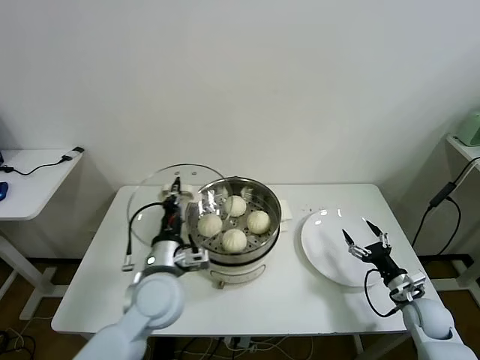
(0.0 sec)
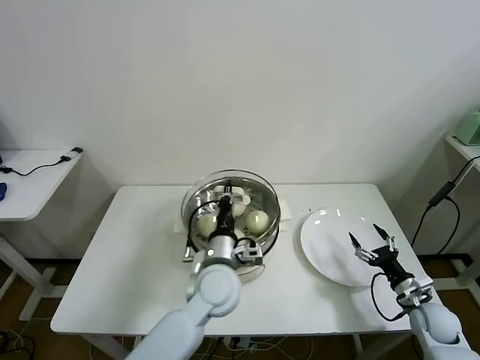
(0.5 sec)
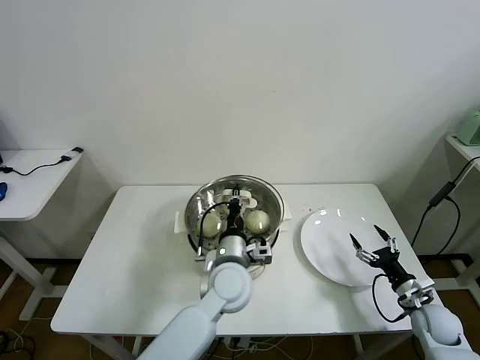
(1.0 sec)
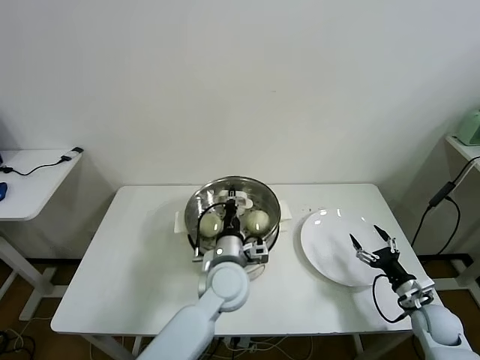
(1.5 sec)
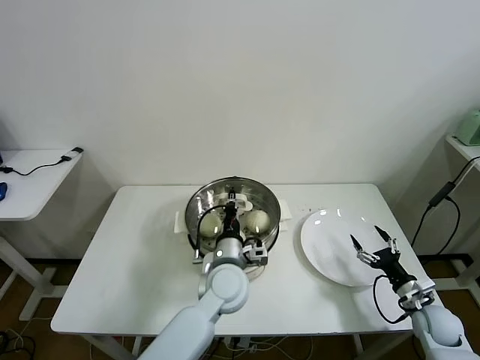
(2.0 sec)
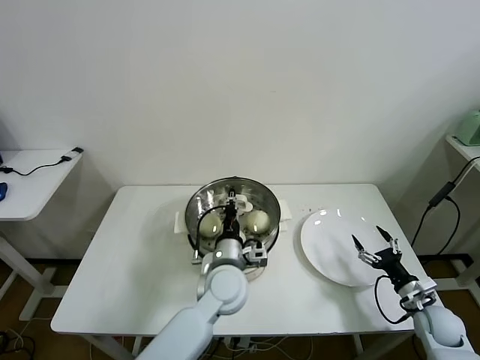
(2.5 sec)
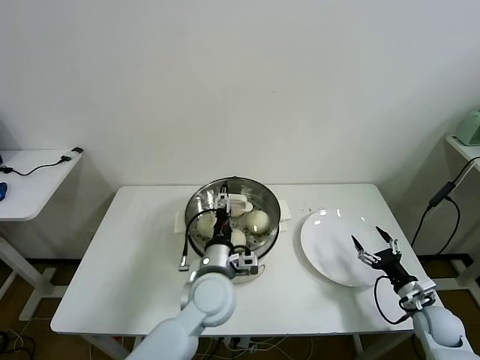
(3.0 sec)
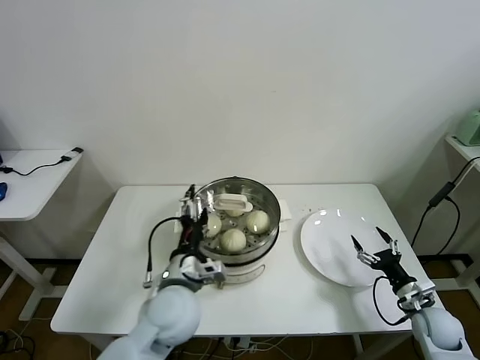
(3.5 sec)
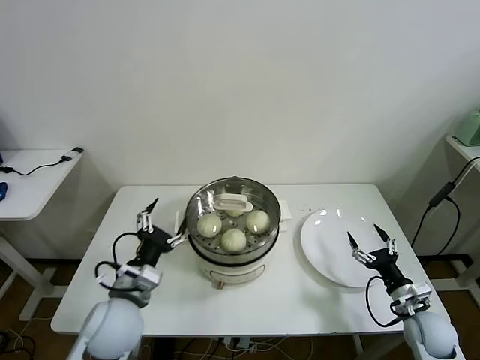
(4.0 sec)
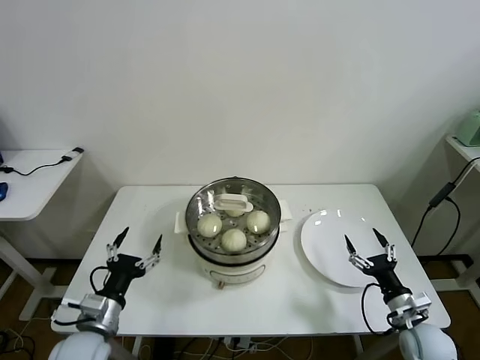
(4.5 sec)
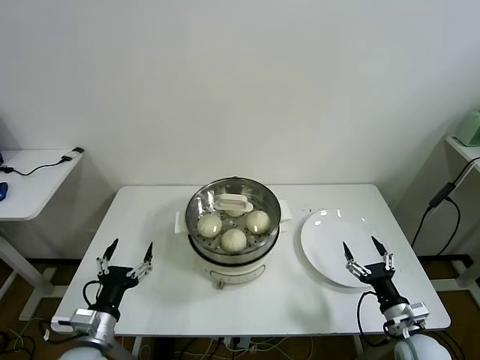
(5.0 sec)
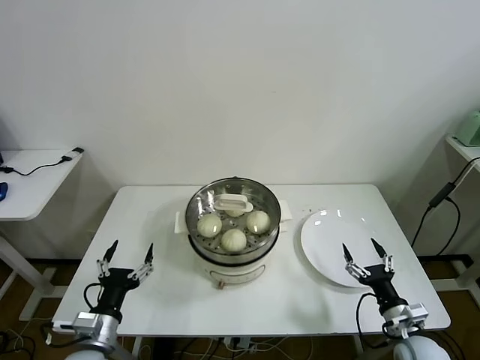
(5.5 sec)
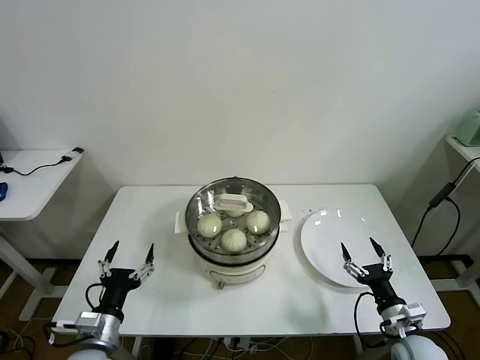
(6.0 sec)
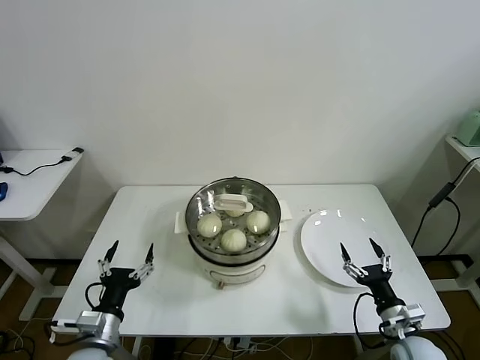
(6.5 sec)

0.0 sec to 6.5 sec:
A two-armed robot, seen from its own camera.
Task of the whole recording: take steamed baozi put them in steamer then cover it.
Step, 0.0 sec to 2.5 sec: Place the pot lid on the steamer with left gripper.
0.0 sec to 2.0 sec: The left gripper goes about 15 cm to the right.
2.0 sec to 4.5 sec: The left gripper goes about 30 cm to the left and backward, and opens up. Meanwhile the right gripper shifts approximately 5 cm to the left.
4.5 sec to 6.5 sec: The grippers make only small movements.
